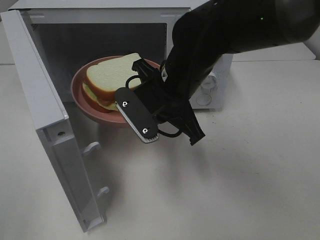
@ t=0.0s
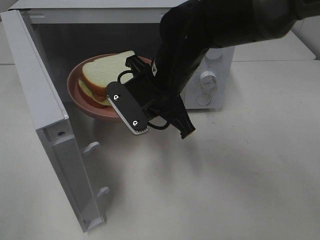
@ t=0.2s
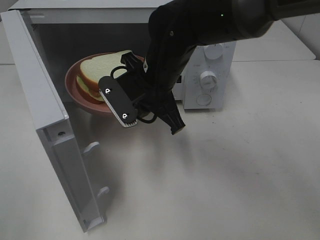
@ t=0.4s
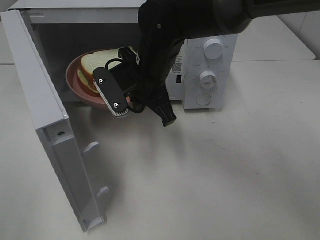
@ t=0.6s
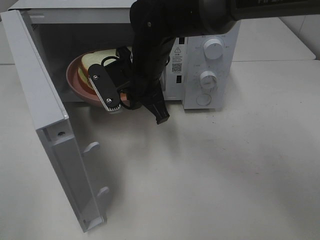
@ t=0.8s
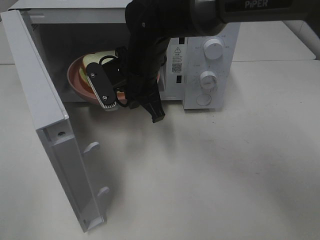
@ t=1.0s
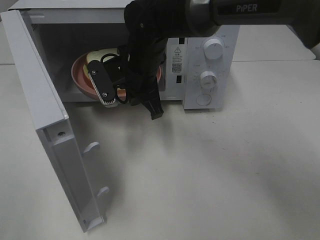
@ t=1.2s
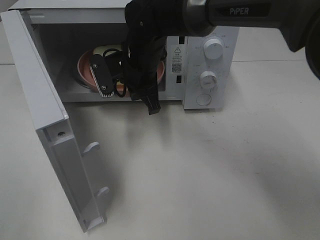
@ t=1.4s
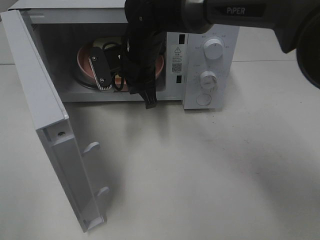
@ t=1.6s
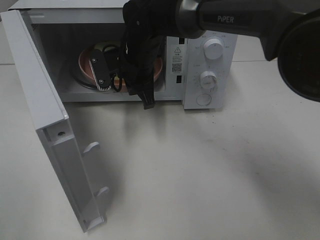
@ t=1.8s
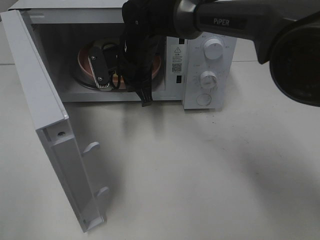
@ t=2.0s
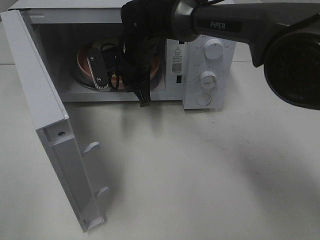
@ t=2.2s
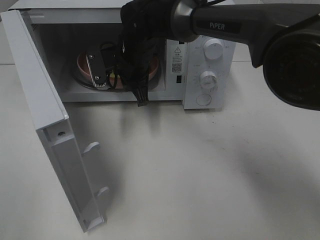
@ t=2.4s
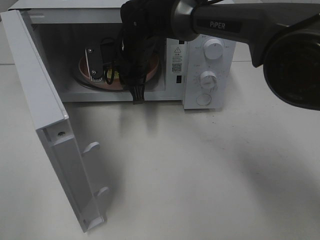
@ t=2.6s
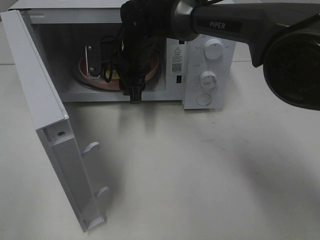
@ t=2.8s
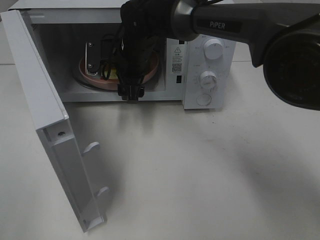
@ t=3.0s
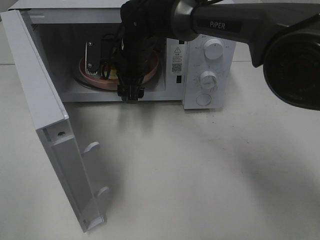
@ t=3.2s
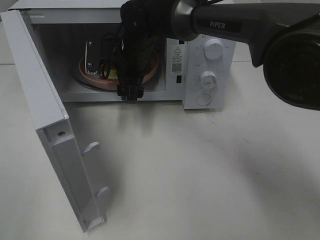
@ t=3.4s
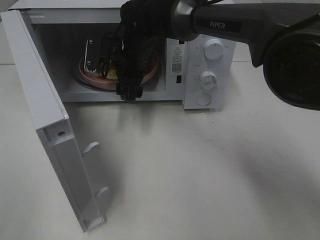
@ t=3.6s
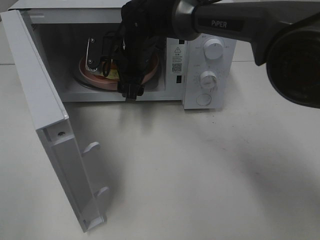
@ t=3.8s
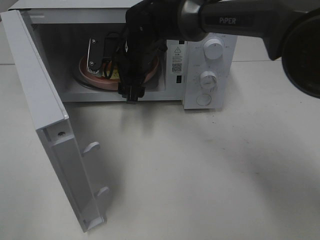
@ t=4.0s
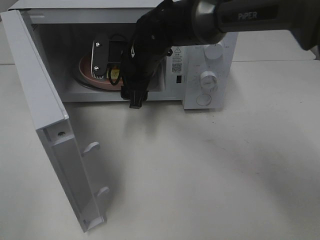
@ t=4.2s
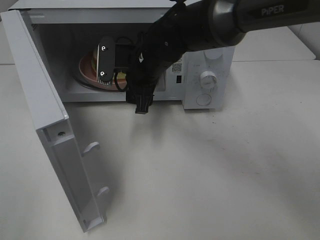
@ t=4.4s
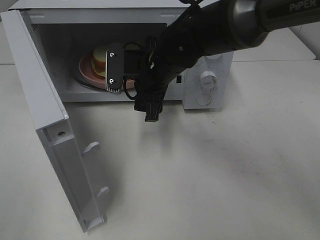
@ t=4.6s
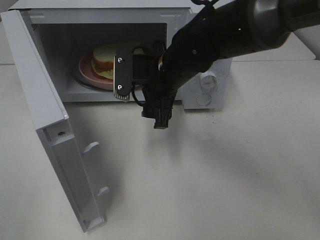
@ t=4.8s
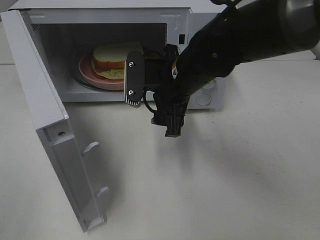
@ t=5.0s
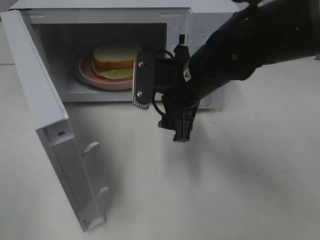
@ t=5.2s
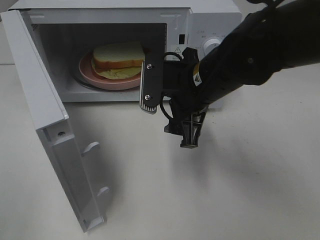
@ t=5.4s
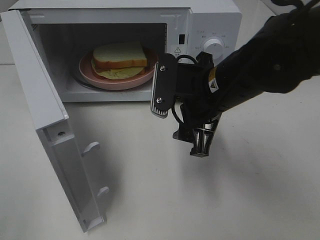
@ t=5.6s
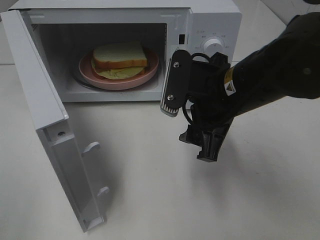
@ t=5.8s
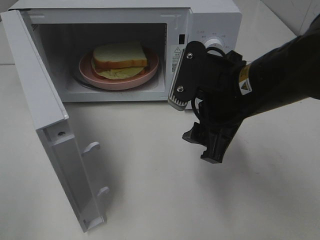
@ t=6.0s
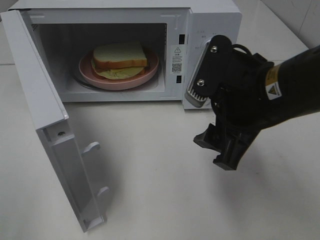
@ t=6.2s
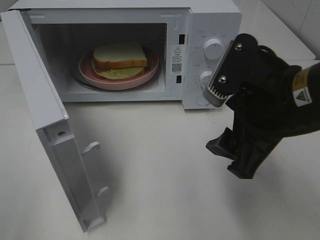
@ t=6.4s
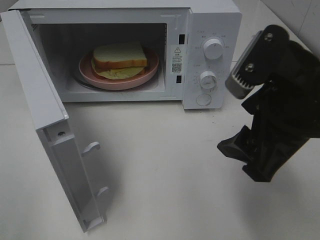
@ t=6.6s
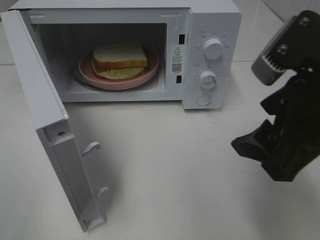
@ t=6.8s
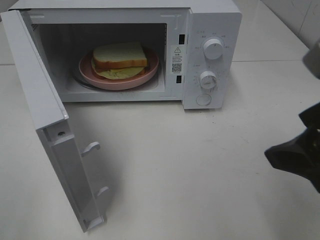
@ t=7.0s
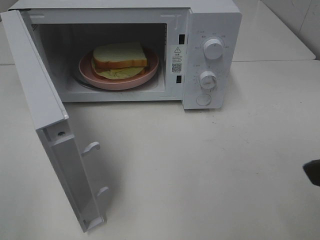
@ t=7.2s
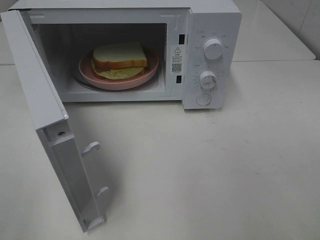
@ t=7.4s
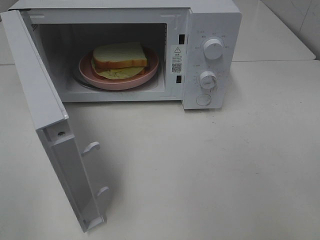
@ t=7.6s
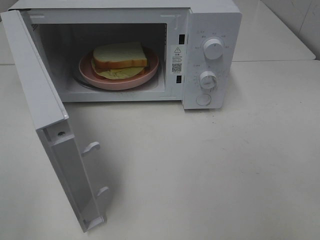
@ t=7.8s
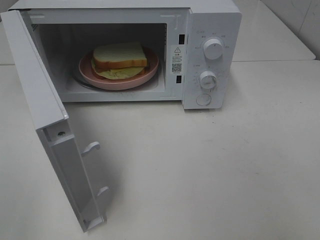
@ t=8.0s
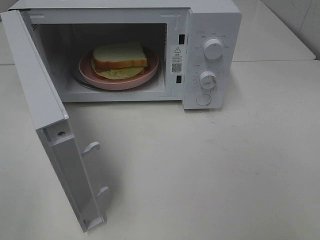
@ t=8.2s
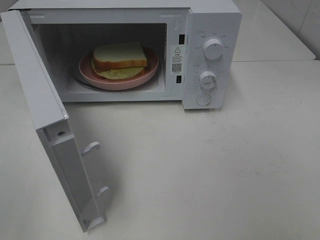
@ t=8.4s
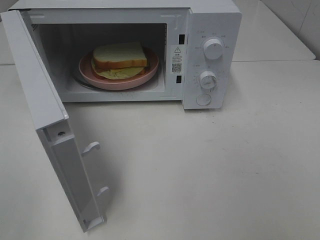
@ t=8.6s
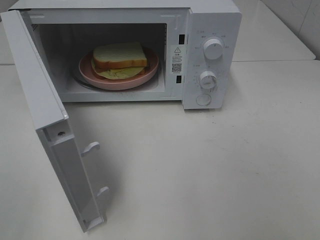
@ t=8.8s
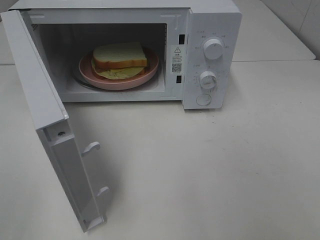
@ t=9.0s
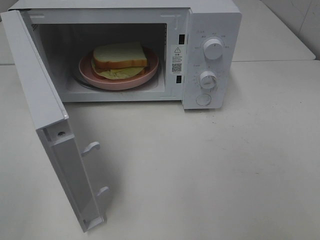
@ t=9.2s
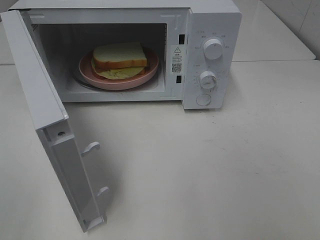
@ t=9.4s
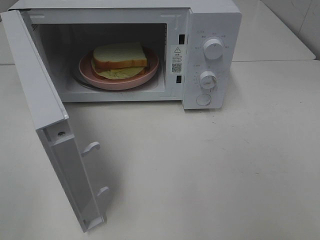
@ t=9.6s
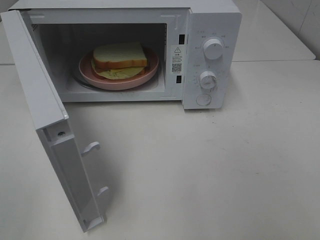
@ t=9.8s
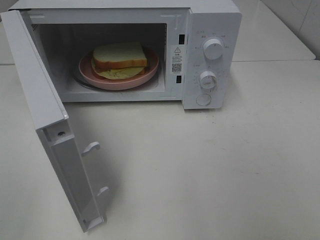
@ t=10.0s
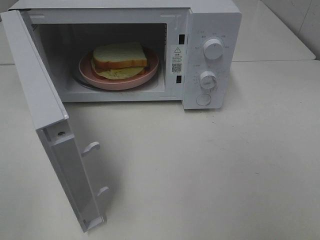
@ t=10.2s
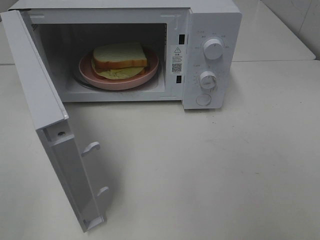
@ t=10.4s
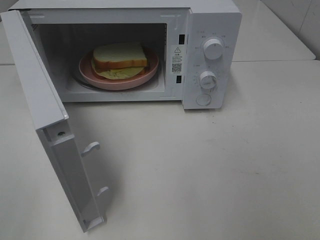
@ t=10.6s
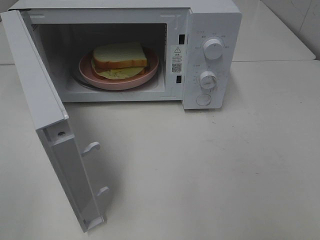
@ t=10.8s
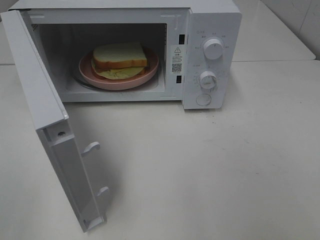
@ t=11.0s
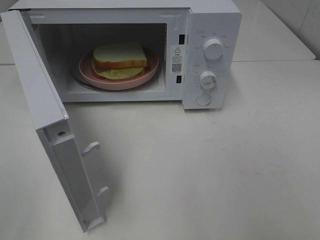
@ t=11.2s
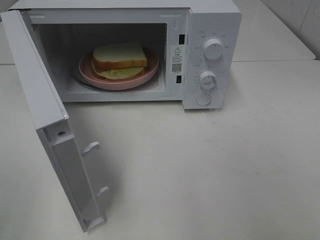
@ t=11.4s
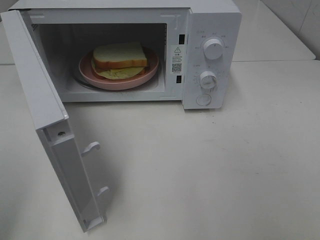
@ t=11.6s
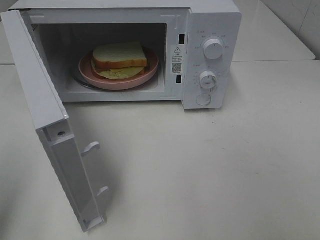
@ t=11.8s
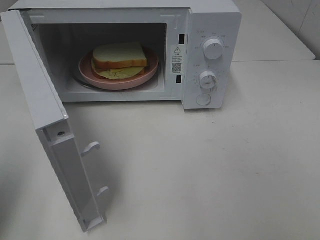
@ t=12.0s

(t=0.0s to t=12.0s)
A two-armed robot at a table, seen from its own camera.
Task of the whole recording: Heat Sandwich.
Step, t=0.0s - t=3.8s: Right hand: place the plate in the microwave.
t=0.0s - t=1.6s: The right gripper shifts some 10 cm forward and to the left.
t=1.6s - t=3.0s: The right gripper opens up.
t=3.0s - t=4.4s: The right gripper moves some 5 cm.
t=4.4s - t=6.0s: The right gripper travels backward and to the right by about 20 cm.
t=6.0s - t=7.6s: The right gripper moves backward, to the right and upward, some 25 cm.
t=9.0s - t=10.4s: The two grippers keep their place.
t=10.4s - t=12.0s: The left gripper travels forward by roughly 15 cm, and closes its fingers.

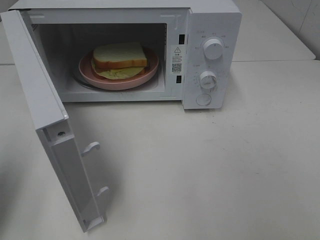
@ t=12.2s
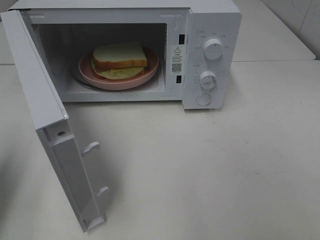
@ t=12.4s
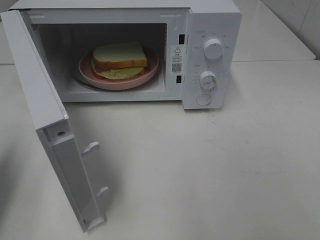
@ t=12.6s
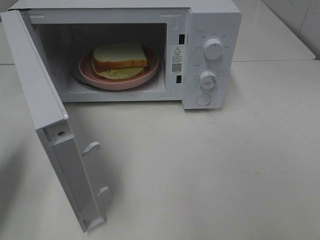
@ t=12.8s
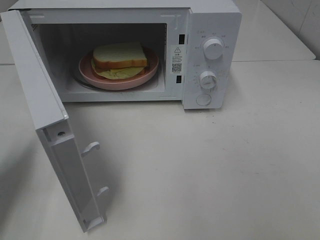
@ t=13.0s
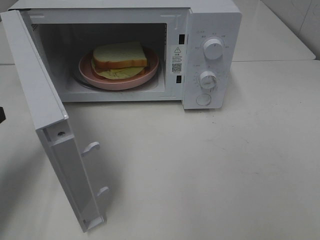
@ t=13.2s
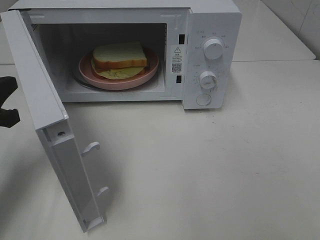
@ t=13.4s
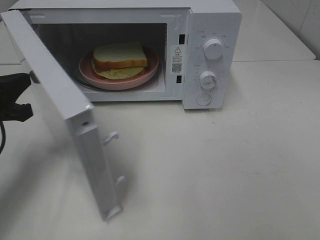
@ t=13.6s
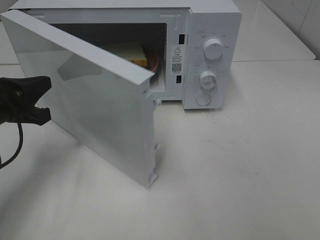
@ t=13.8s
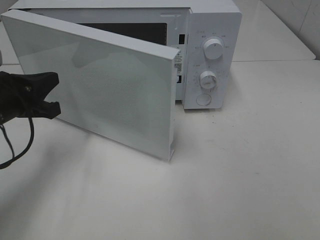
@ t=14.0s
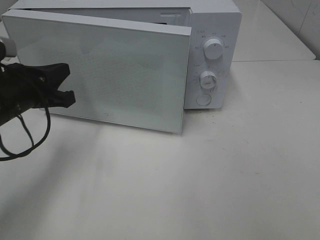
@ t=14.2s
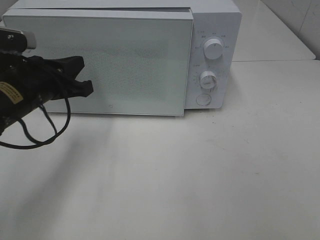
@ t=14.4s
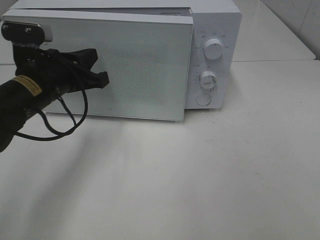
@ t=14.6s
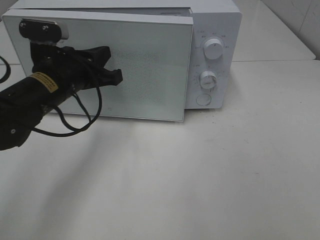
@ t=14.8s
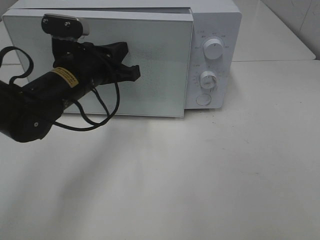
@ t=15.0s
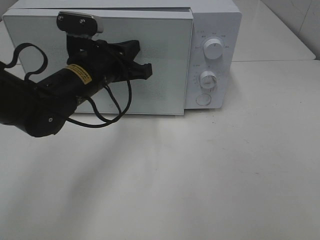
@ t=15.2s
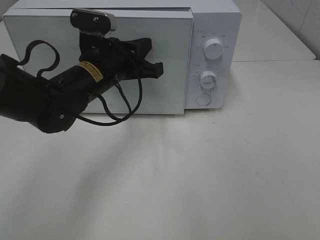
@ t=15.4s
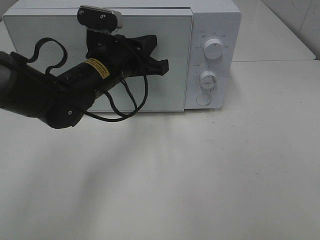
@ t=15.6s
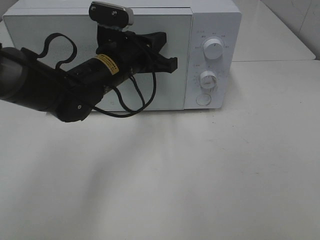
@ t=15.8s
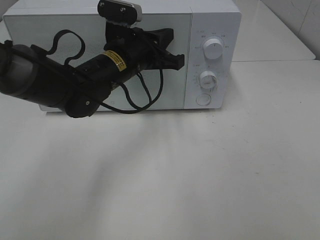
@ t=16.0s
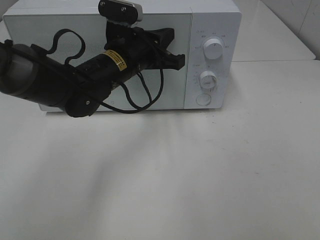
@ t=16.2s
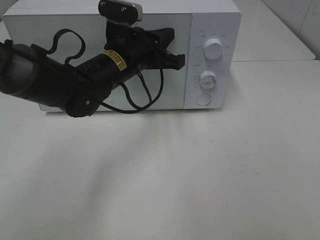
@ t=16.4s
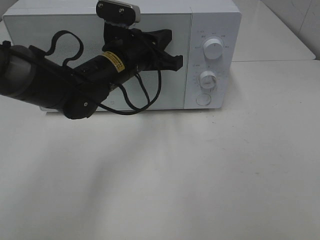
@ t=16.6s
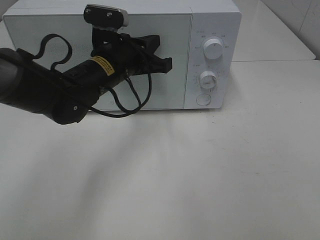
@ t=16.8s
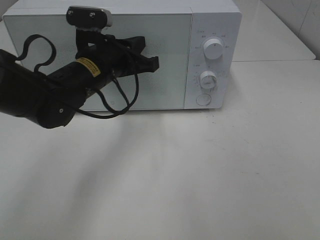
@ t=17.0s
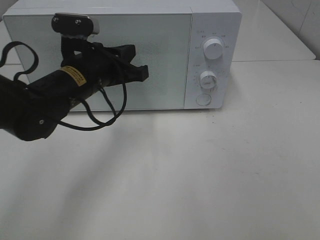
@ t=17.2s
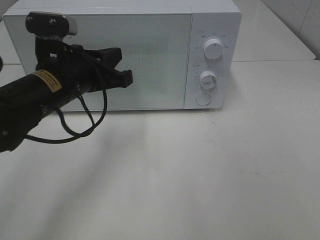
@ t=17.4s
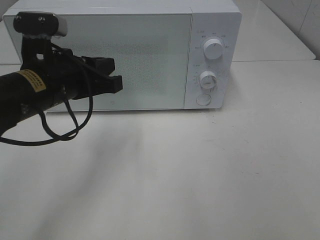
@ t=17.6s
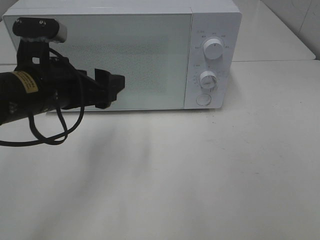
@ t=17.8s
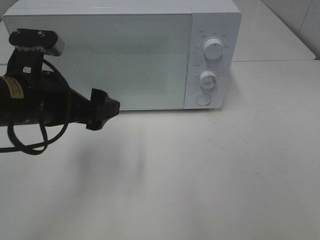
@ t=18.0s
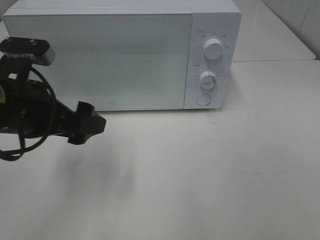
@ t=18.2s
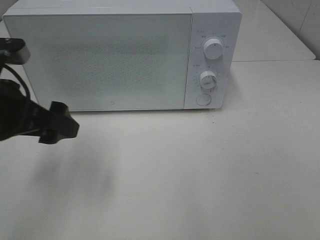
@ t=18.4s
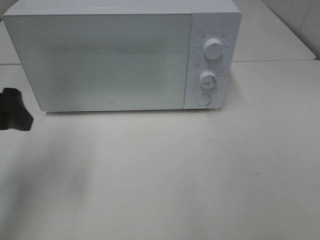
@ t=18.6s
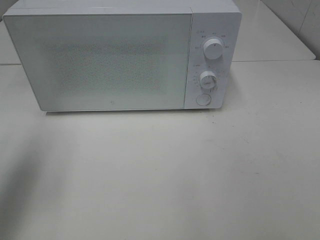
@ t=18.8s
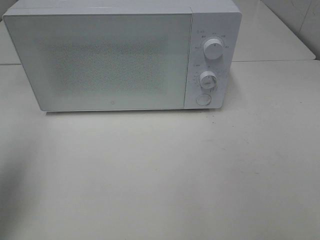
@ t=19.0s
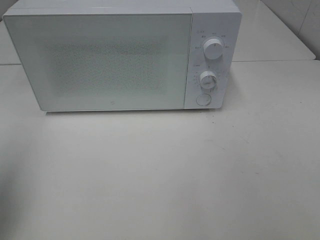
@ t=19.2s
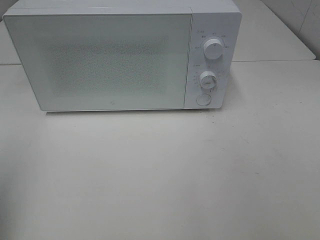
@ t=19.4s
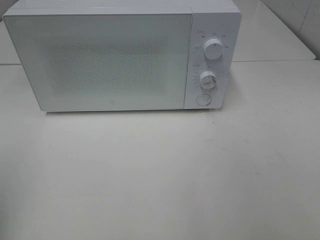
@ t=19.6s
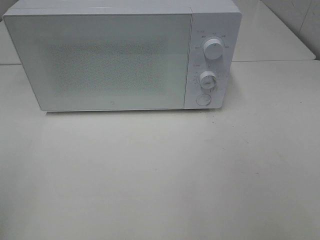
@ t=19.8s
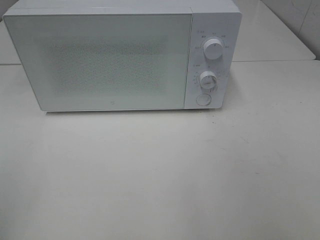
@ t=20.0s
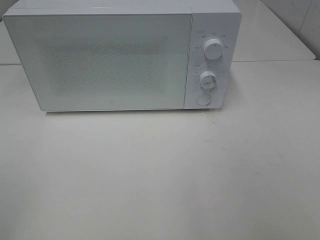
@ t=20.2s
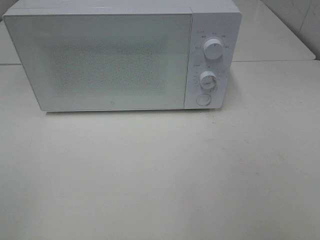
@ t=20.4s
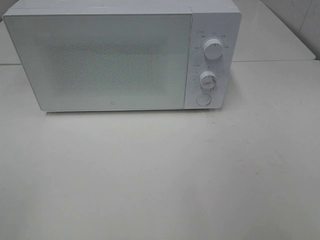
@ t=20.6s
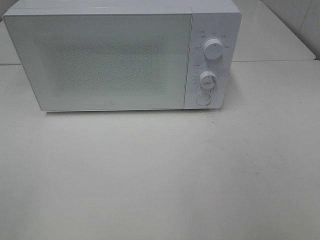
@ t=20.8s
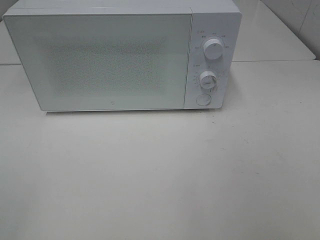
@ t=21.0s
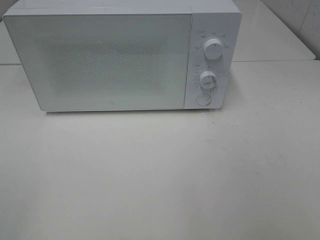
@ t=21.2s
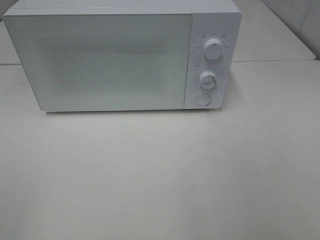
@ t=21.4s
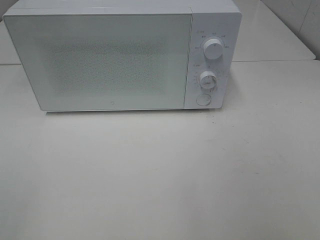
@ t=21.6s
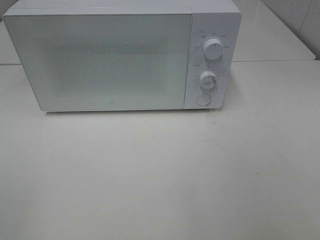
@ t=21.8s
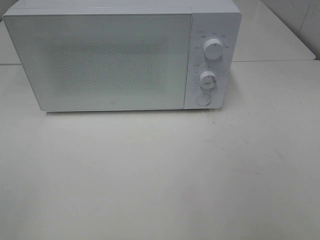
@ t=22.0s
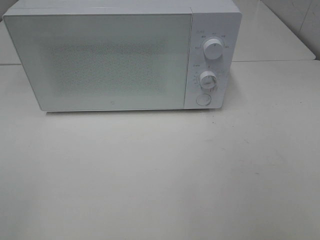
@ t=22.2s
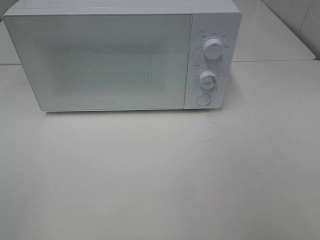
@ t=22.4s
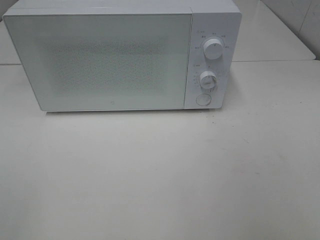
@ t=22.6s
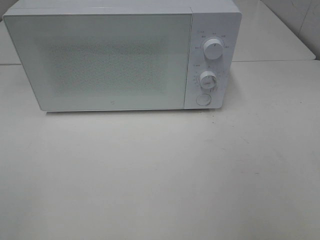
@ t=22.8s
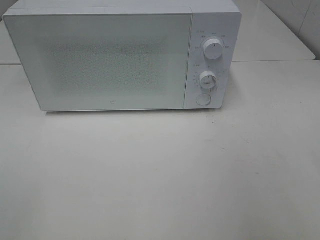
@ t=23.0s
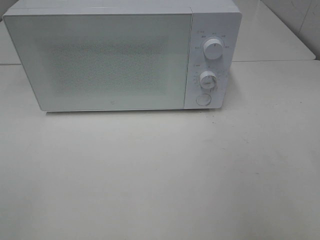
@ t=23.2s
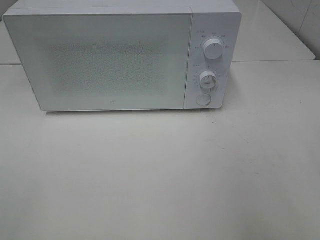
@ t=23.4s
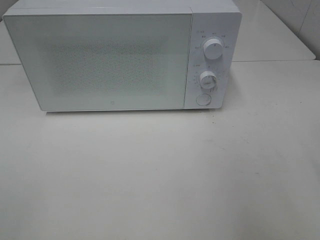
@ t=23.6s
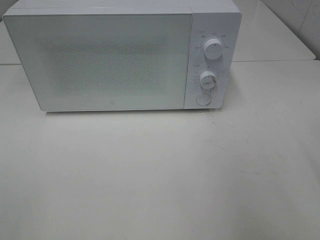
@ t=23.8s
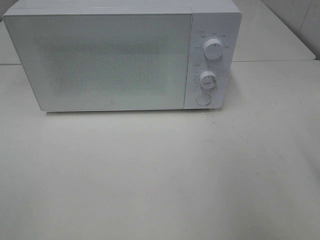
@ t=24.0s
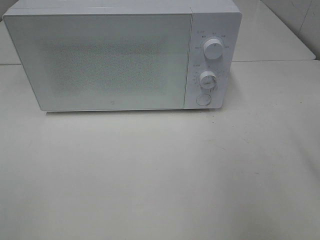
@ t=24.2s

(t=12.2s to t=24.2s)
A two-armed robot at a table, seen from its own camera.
Task of the whole recording: Heat Sandwich.
Step, t=12.2s - t=16.6s: Left hand: close the microwave door.
t=12.2s - t=13.8s: The left gripper heads forward, downward and to the right, covering roughly 15 cm.
t=13.8s - t=15.2s: The left gripper goes approximately 15 cm to the right and forward.
t=15.2s - t=16.6s: The left gripper ends up approximately 5 cm from where it was.
t=16.6s - t=18.2s: The left gripper heads backward and to the left, covering some 20 cm, and opens its fingers.
t=18.2s - t=19.8s: The left gripper heads backward, to the left and upward, covering about 25 cm.
